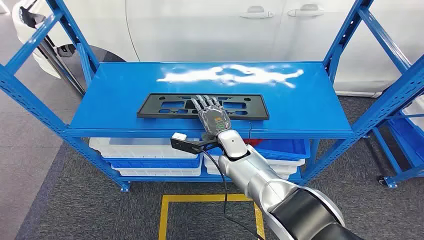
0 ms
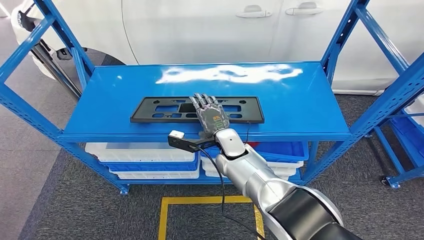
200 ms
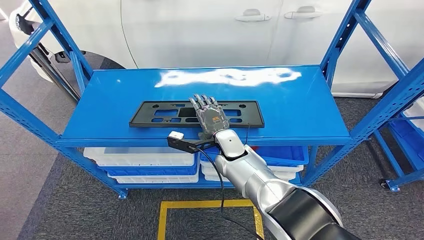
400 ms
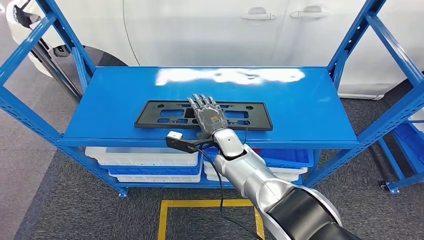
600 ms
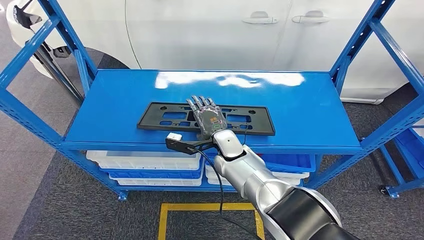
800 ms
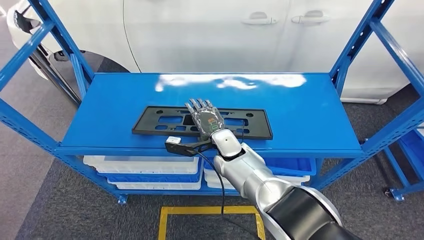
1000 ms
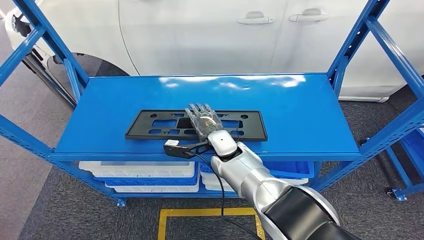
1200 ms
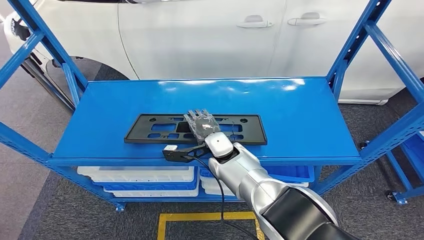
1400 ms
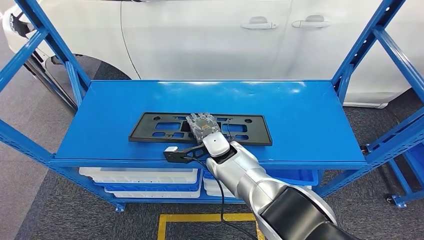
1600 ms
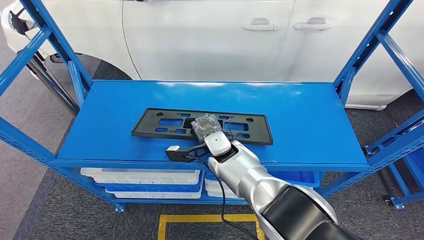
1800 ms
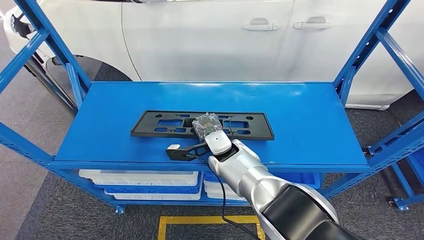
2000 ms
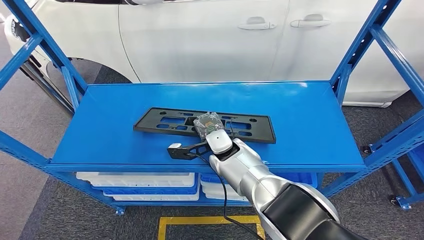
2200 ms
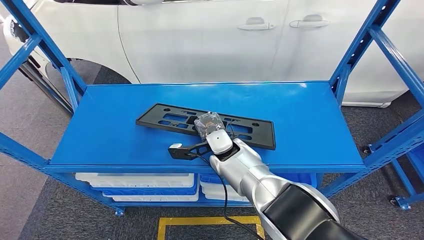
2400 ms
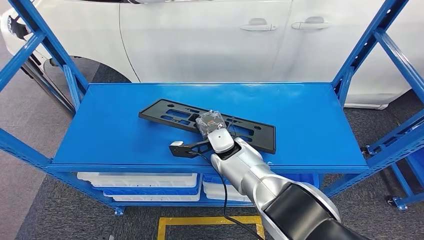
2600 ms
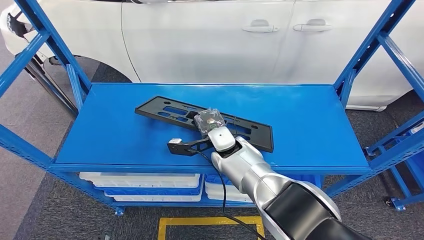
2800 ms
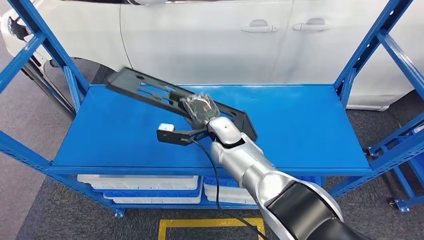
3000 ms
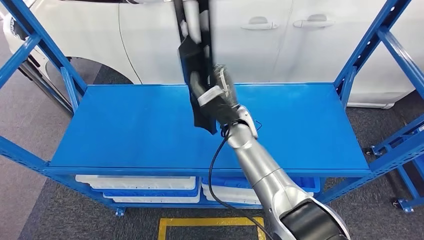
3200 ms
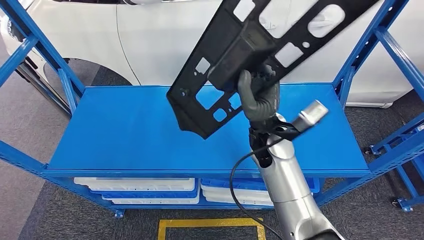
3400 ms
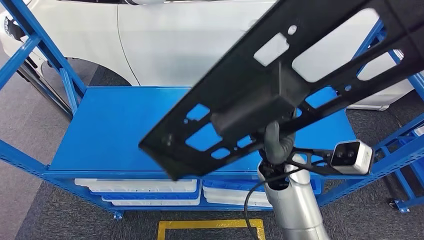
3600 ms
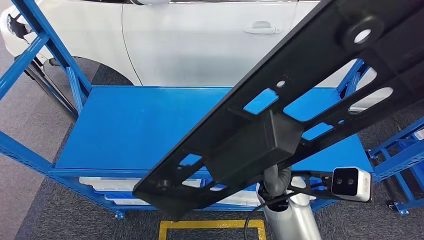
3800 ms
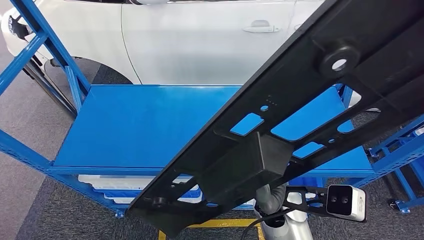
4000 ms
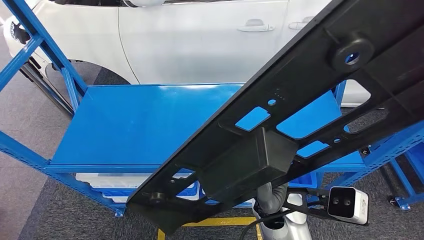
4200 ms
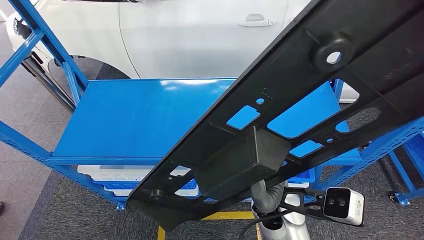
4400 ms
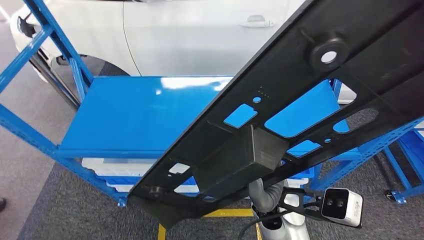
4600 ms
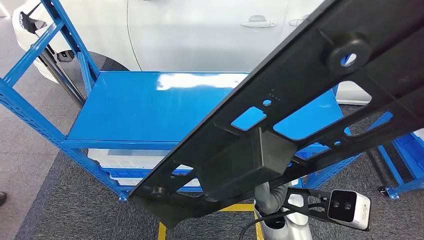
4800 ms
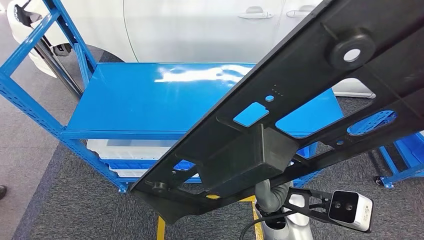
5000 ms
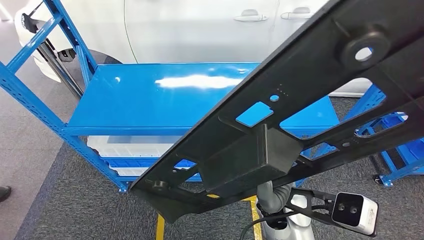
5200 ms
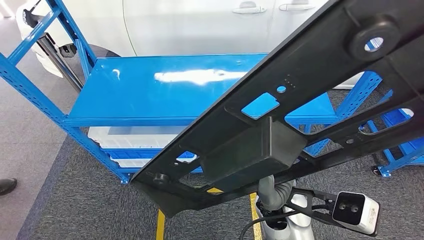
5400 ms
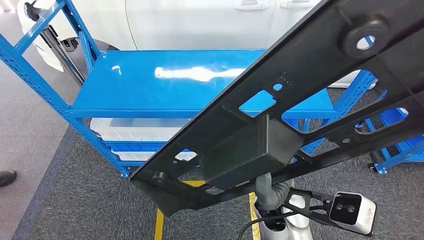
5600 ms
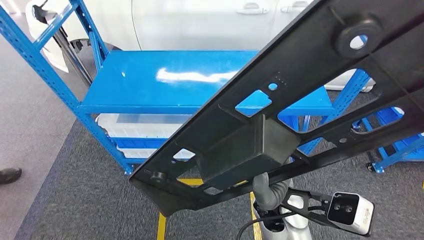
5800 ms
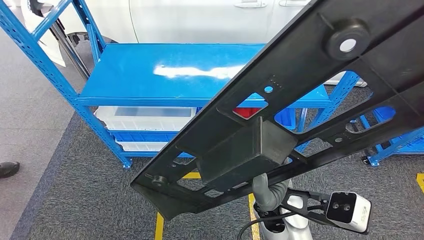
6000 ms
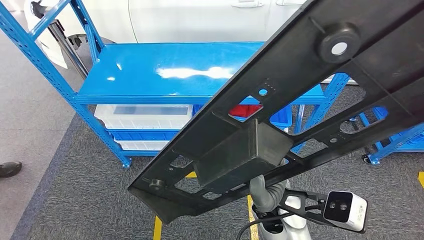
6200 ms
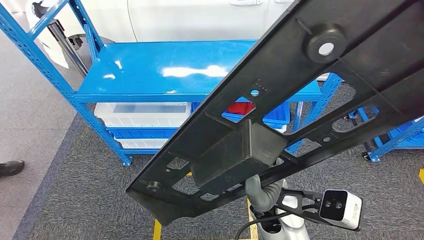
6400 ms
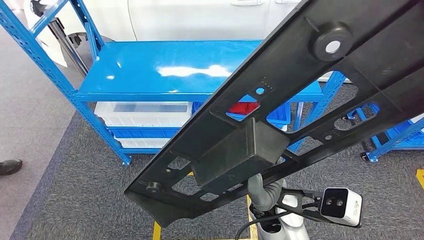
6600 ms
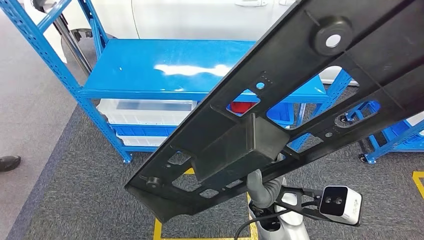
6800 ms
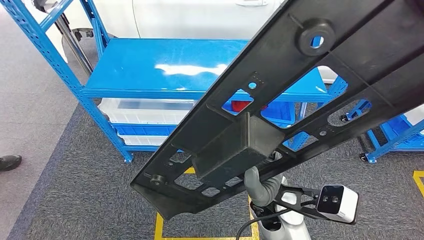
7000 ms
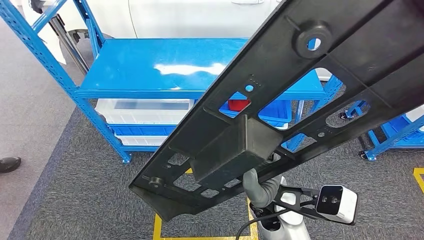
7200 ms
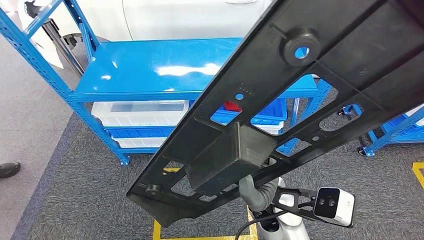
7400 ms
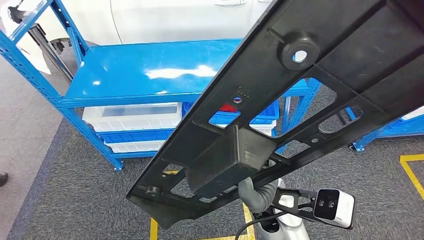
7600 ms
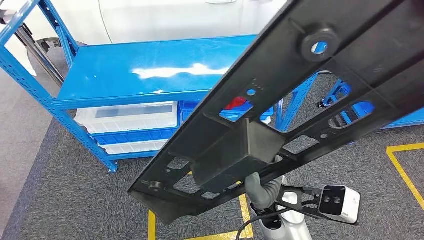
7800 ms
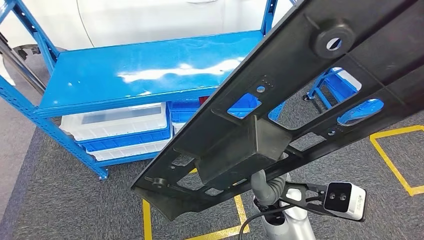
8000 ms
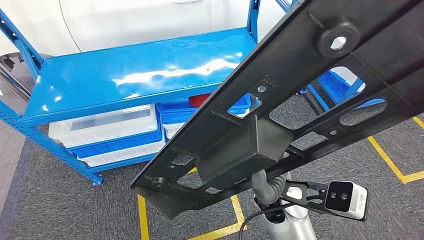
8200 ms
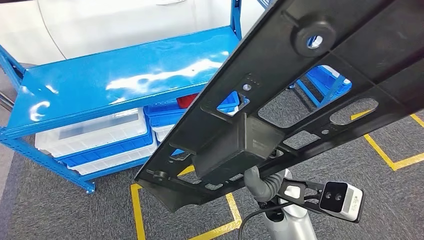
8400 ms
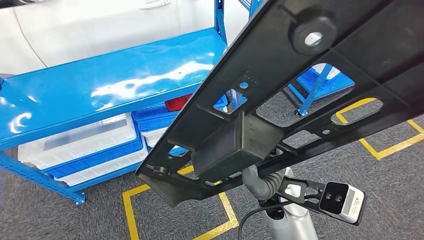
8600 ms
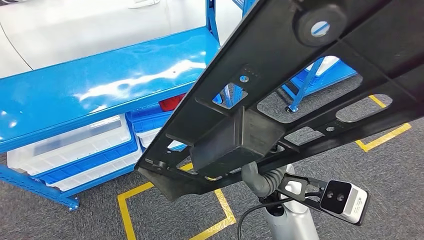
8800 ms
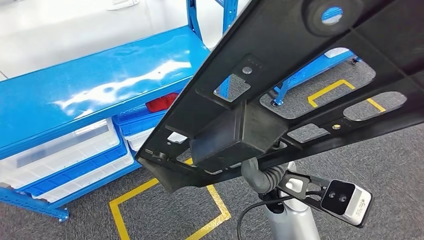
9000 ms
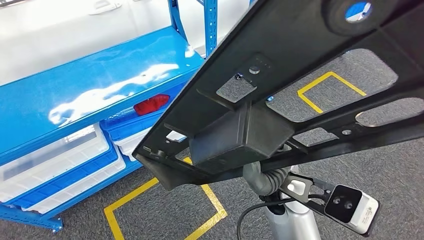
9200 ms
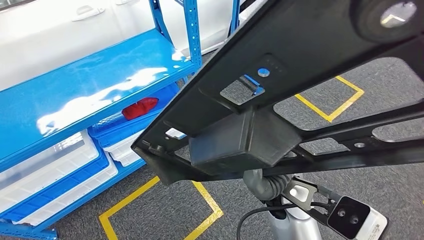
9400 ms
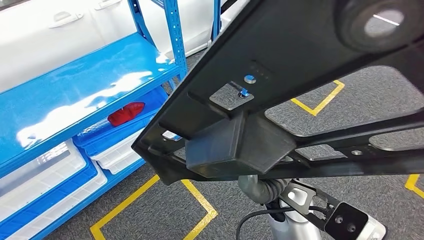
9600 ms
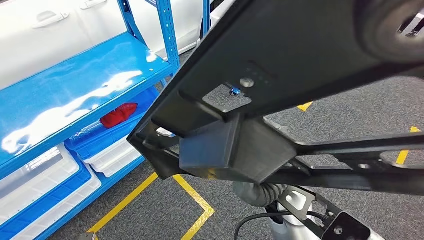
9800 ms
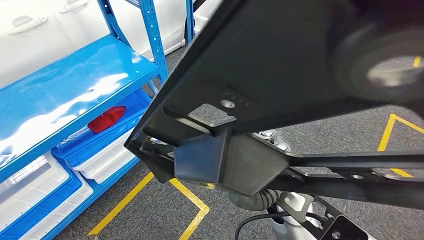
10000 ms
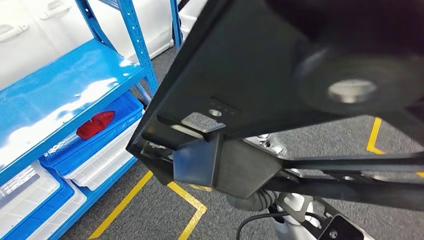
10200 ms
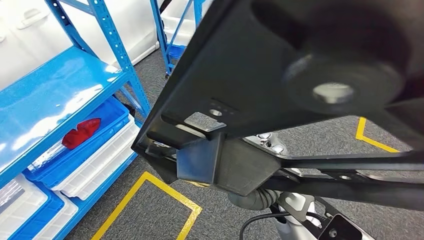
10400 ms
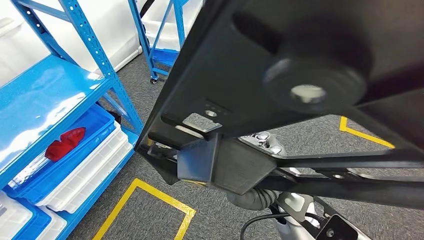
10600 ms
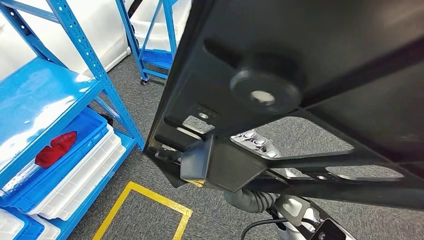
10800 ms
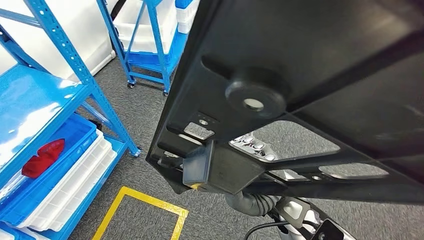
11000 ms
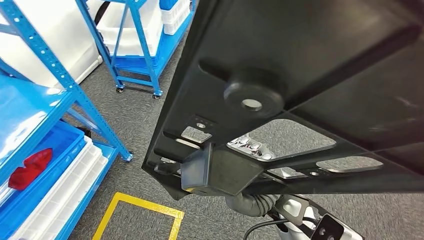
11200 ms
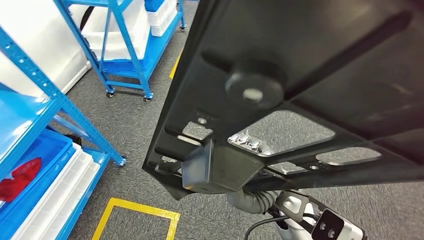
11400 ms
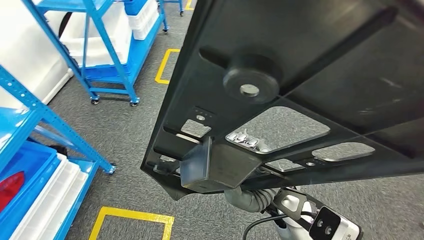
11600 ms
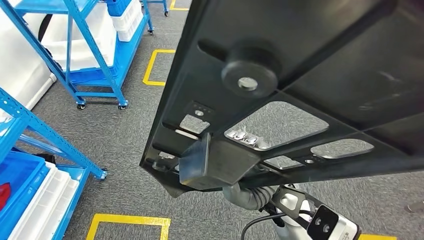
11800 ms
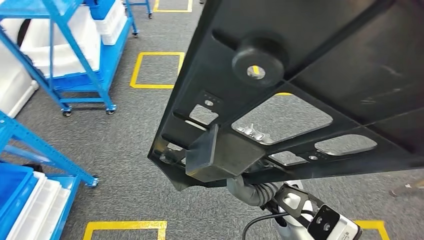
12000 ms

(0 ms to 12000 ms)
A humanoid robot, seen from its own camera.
Step, 0 ms - 5600 ms: Pick up the large material from the shelf.

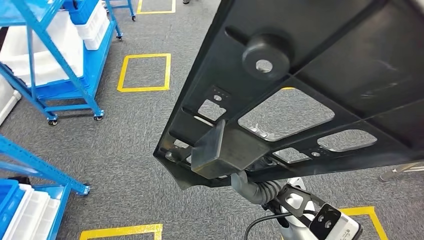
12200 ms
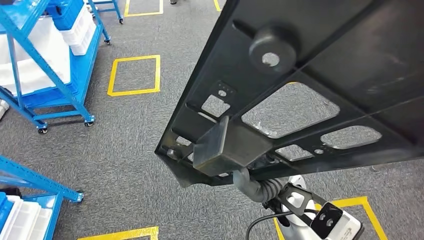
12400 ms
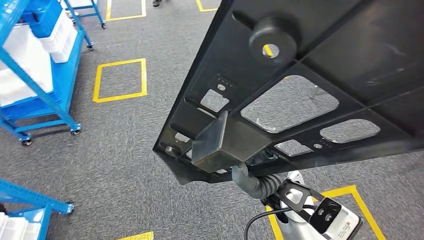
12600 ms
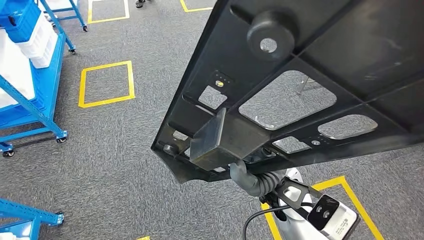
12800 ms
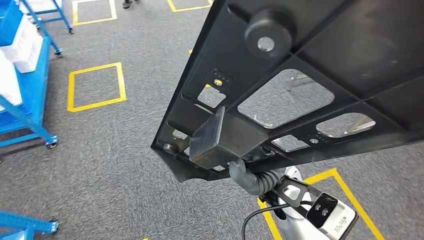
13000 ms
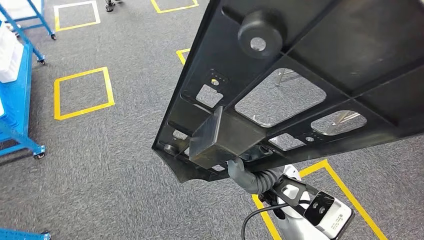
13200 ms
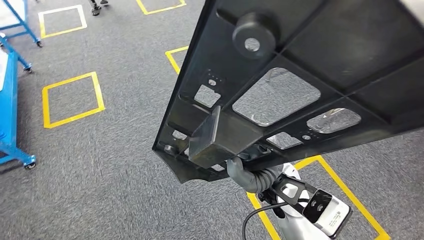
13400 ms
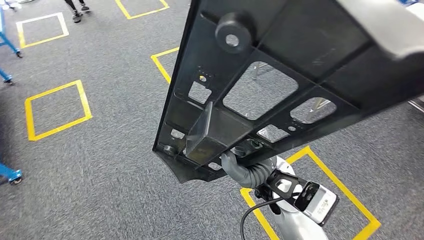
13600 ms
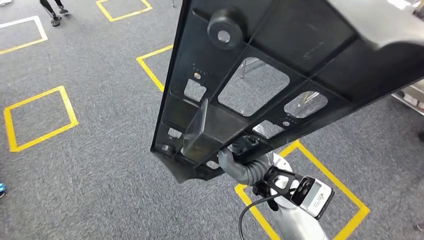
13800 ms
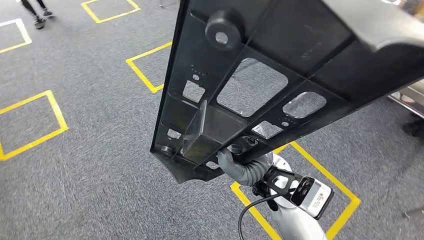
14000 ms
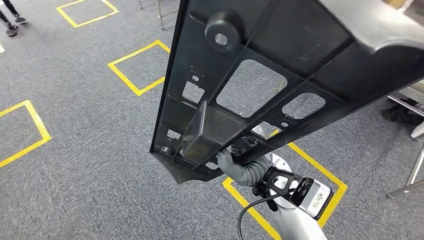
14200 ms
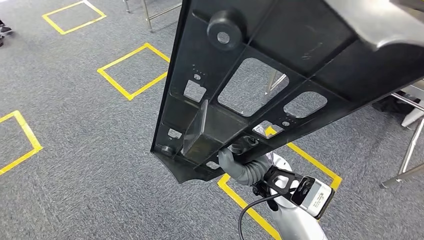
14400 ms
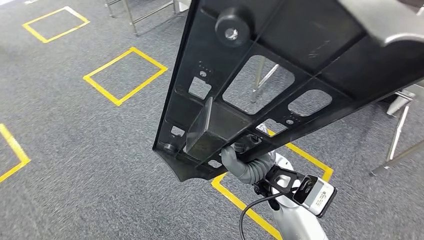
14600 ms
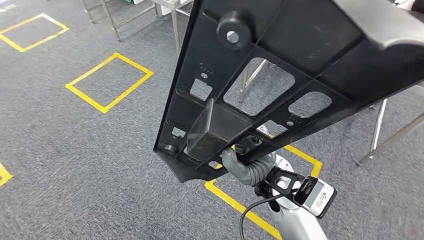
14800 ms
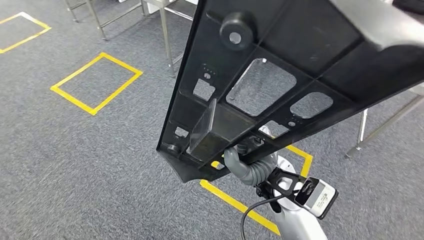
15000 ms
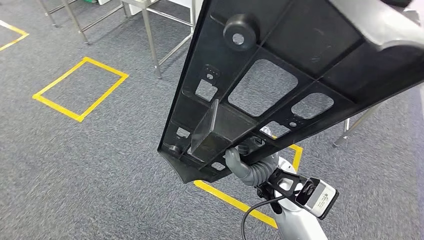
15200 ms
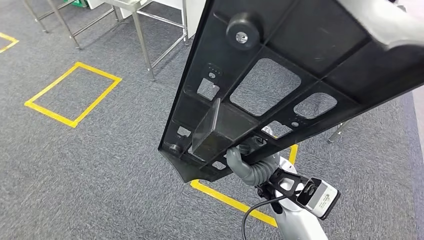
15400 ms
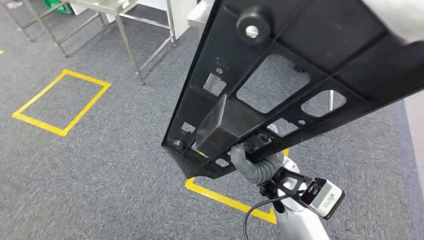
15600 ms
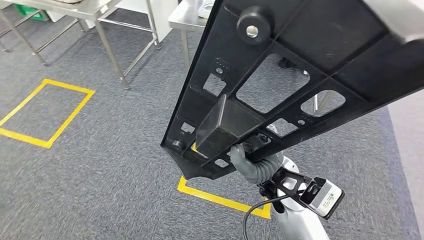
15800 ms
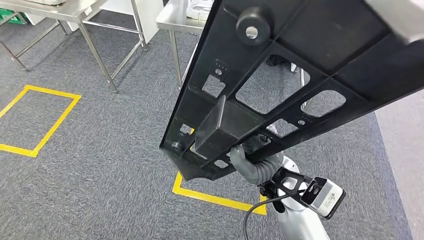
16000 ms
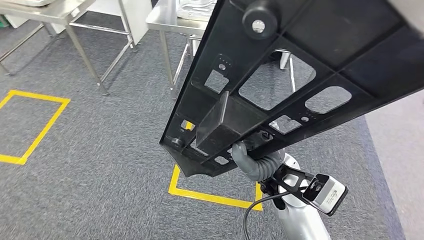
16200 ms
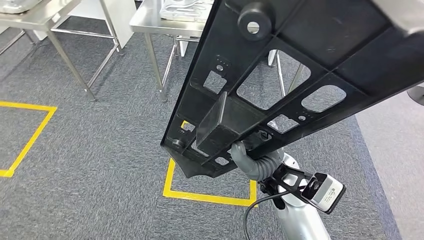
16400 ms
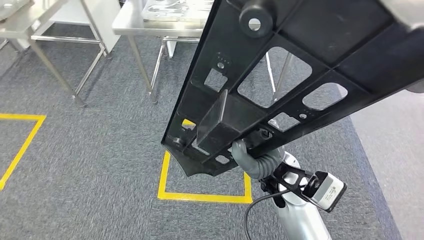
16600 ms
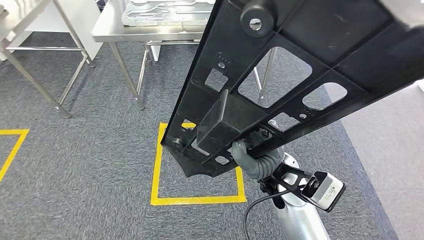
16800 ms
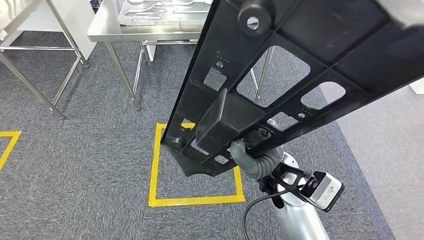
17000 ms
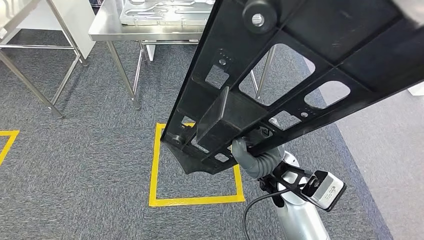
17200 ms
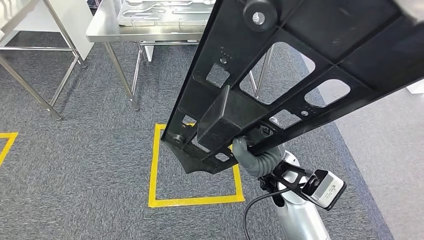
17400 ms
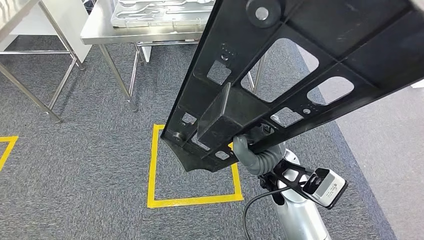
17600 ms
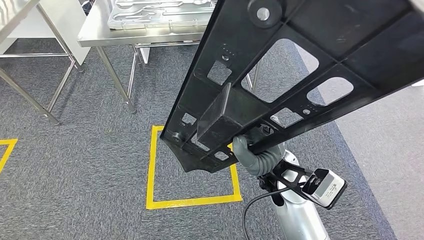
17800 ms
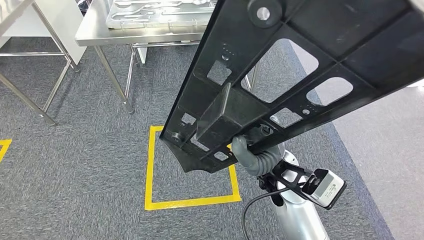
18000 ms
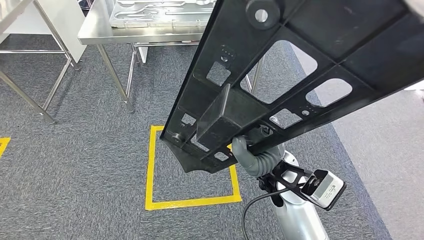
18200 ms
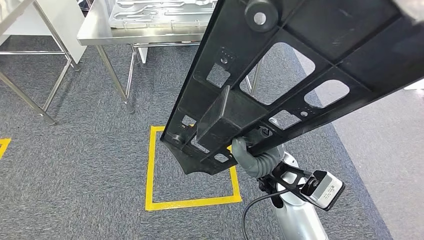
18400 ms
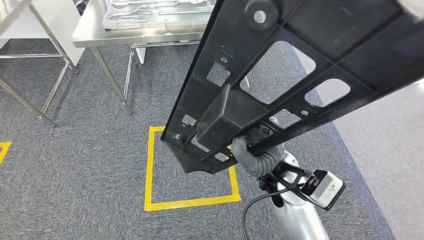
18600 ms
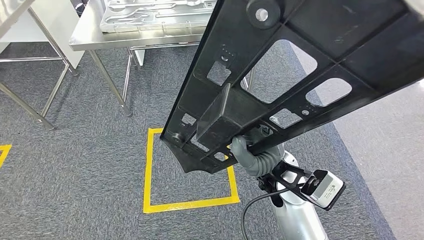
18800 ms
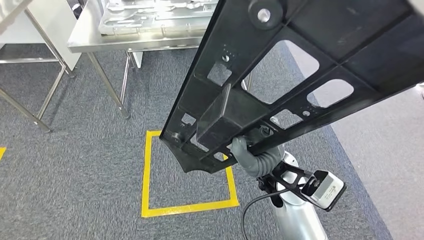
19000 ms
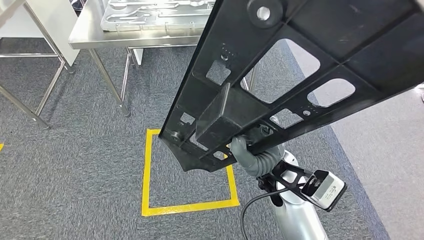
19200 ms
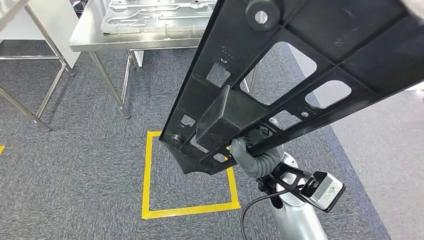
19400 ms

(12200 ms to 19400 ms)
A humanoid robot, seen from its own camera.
18000 ms - 19400 ms: Both hands stay about where they are.
